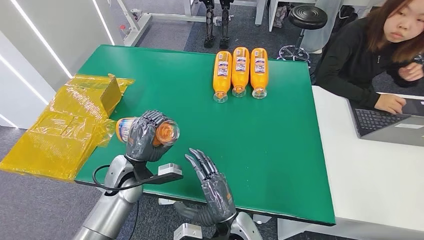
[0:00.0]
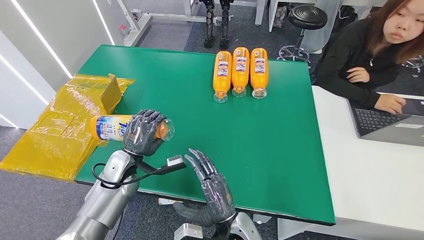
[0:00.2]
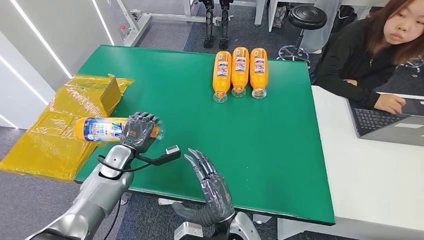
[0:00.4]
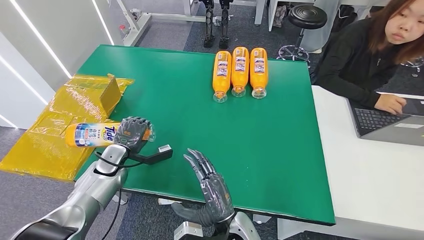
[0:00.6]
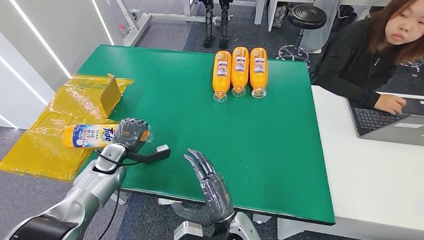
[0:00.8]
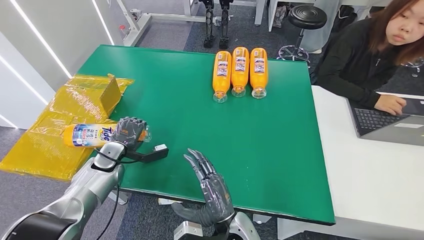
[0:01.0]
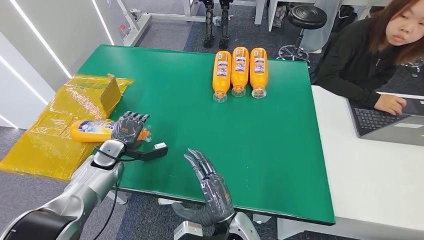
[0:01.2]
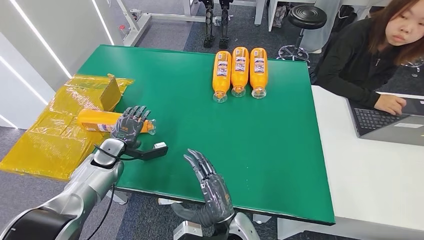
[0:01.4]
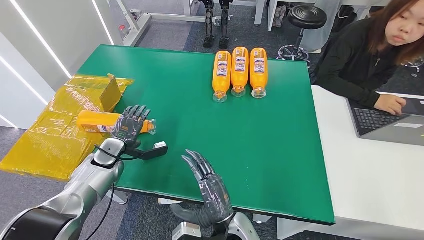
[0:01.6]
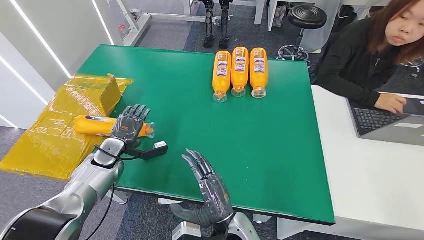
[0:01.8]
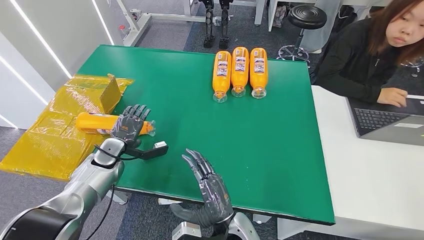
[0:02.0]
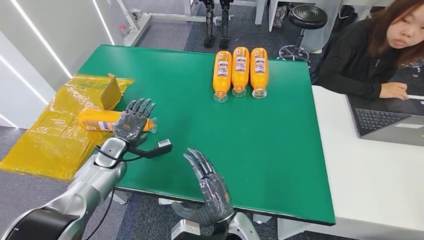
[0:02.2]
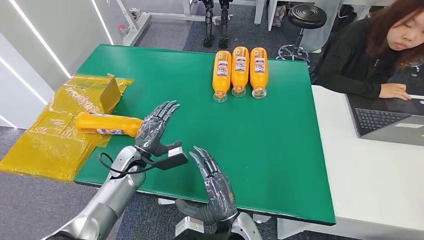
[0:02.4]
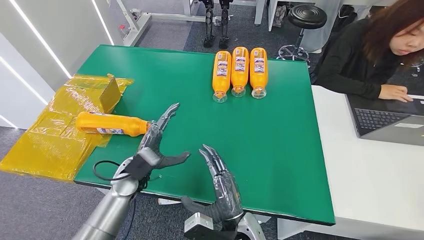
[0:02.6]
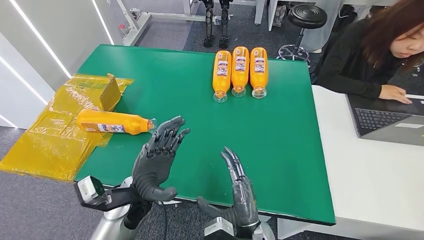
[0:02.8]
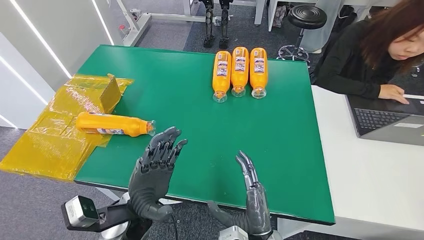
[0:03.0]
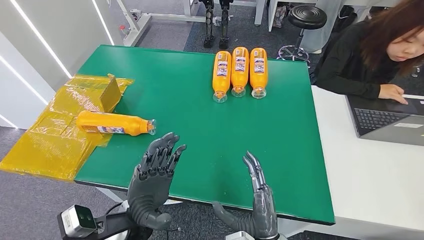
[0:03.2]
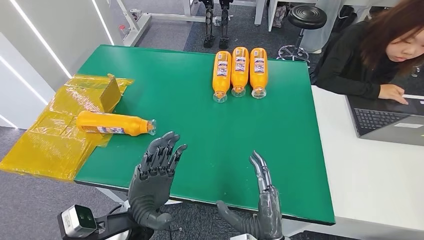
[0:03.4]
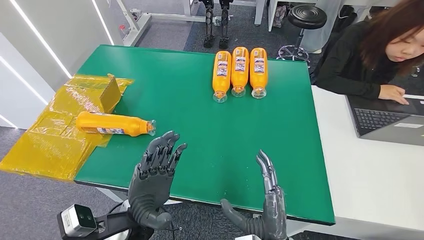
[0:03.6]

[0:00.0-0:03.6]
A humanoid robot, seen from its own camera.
Step, 0:00.0 to 0:03.6: Turn the bottle to the front side.
0:00.0 to 0:01.8: The left hand goes approximately 15 cm to the left and forward.
0:01.8 to 0:03.6: The right hand heads to the right and backward, covering approximately 10 cm. Meanwhile the left hand goes some 25 cm to the right and backward.

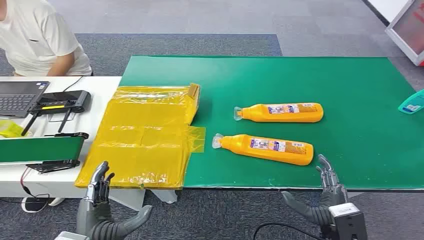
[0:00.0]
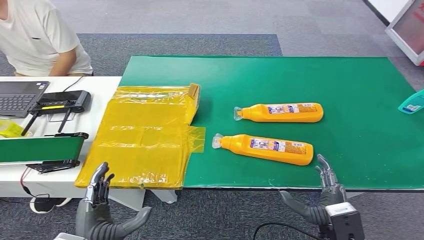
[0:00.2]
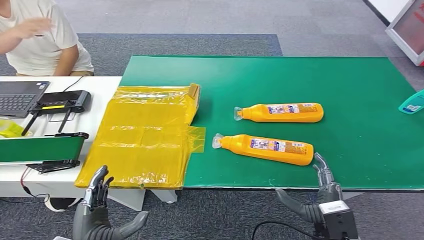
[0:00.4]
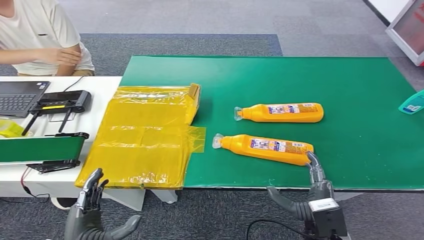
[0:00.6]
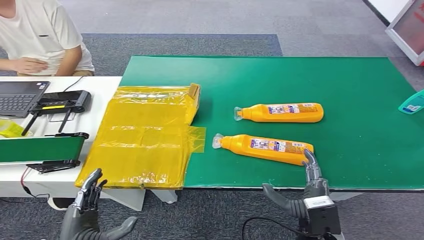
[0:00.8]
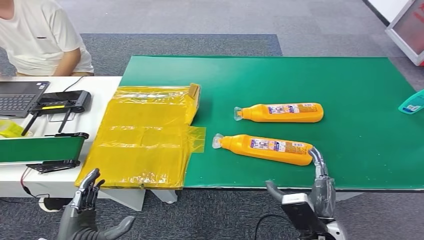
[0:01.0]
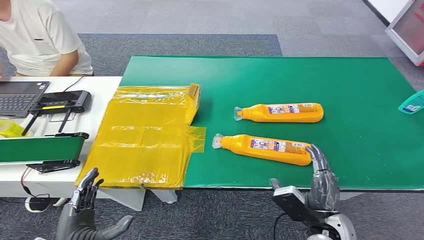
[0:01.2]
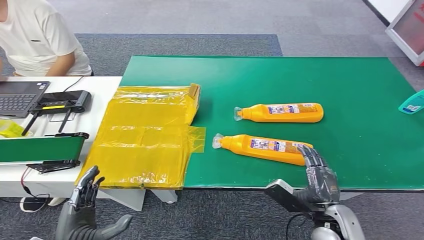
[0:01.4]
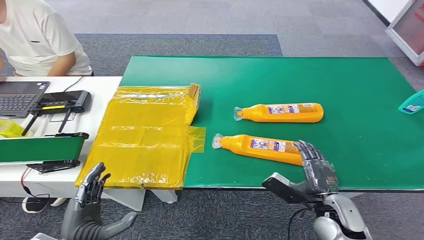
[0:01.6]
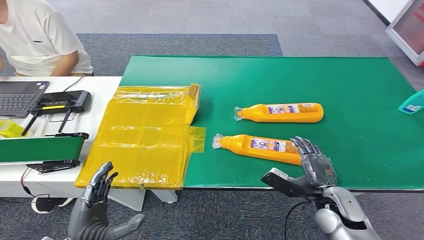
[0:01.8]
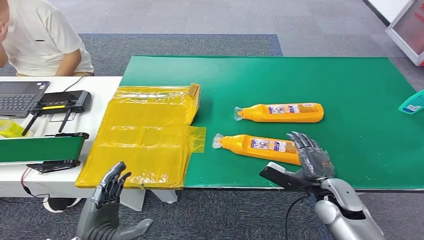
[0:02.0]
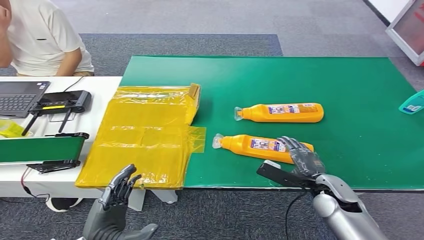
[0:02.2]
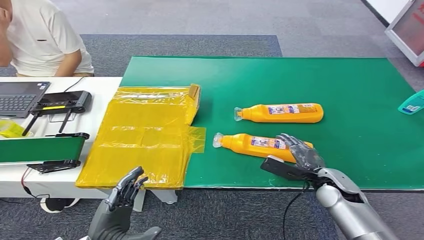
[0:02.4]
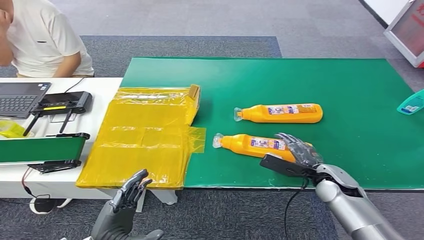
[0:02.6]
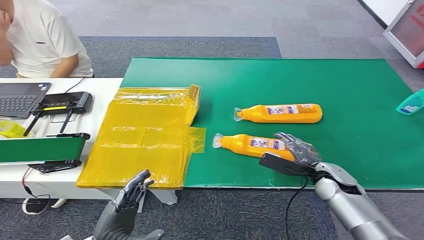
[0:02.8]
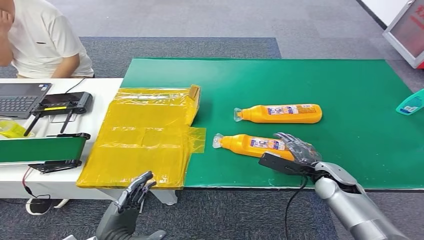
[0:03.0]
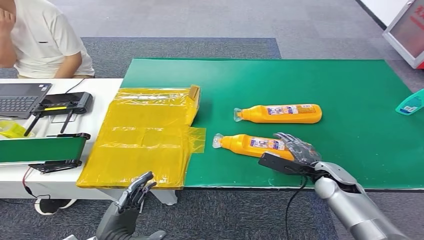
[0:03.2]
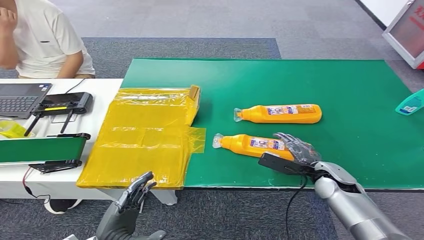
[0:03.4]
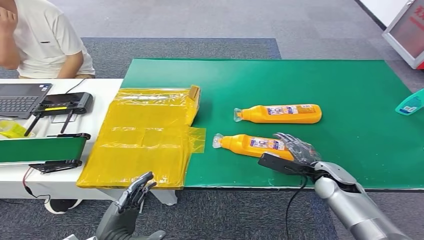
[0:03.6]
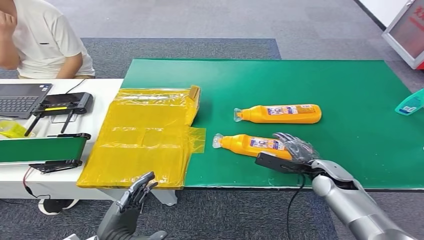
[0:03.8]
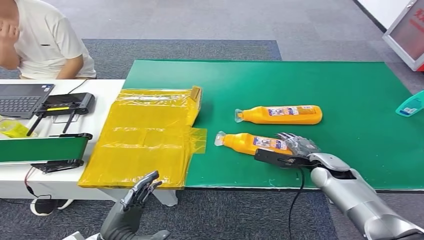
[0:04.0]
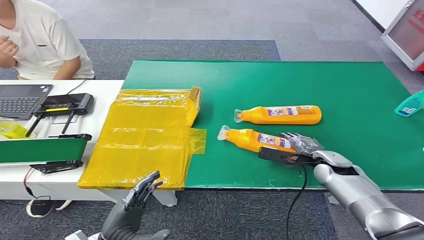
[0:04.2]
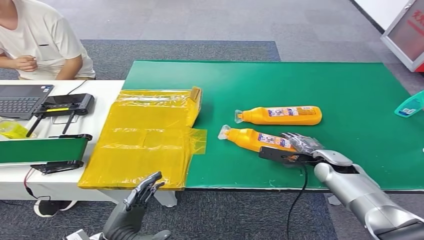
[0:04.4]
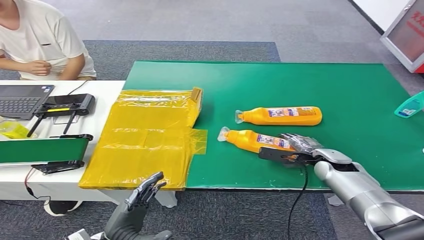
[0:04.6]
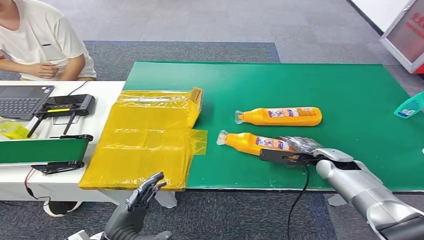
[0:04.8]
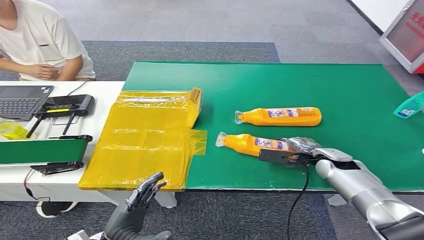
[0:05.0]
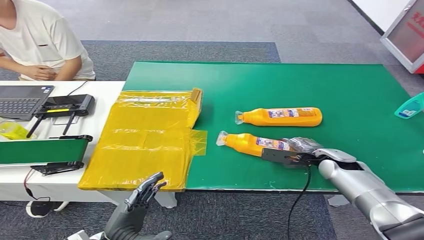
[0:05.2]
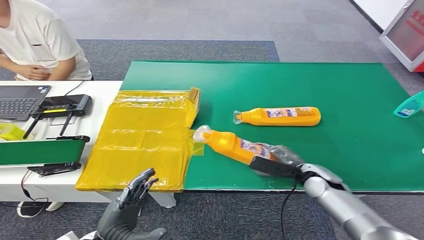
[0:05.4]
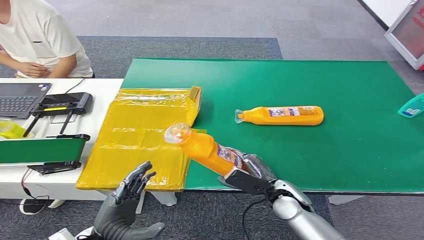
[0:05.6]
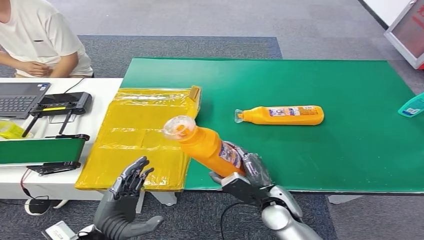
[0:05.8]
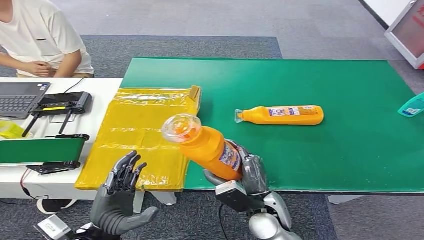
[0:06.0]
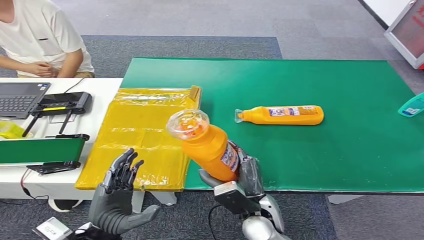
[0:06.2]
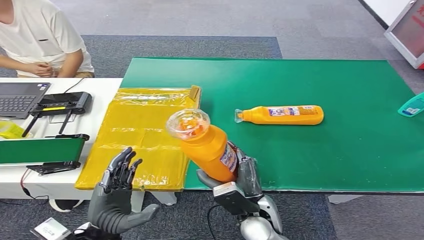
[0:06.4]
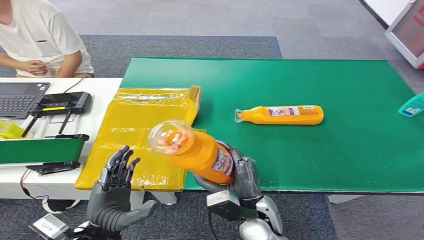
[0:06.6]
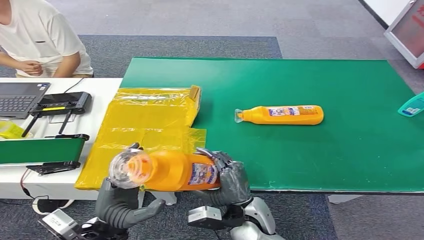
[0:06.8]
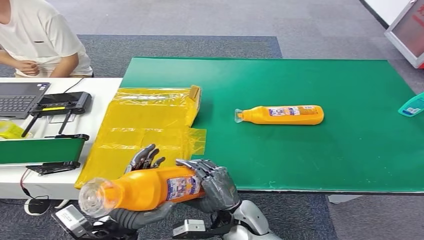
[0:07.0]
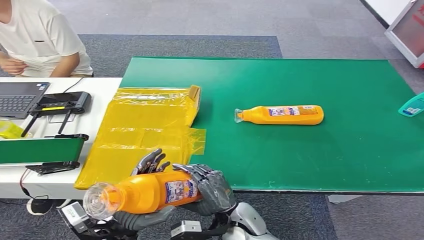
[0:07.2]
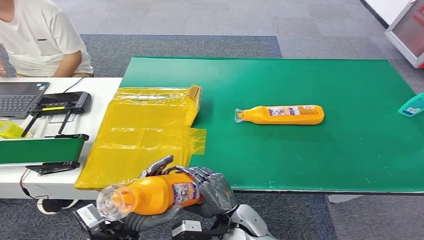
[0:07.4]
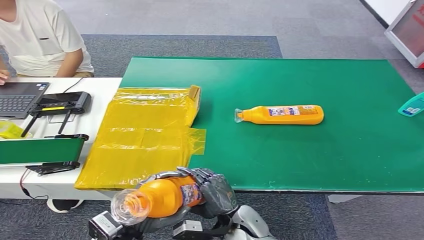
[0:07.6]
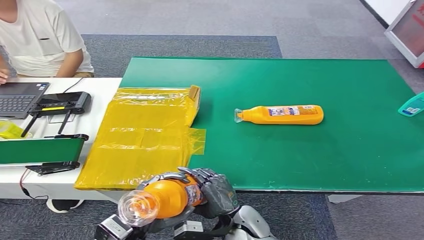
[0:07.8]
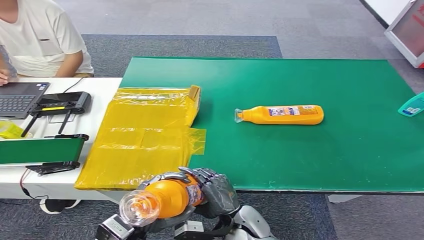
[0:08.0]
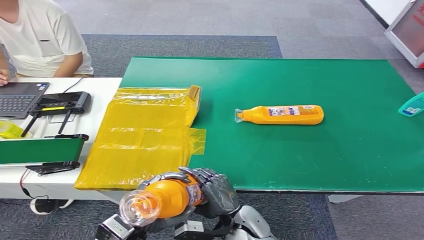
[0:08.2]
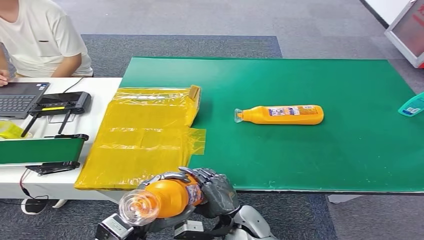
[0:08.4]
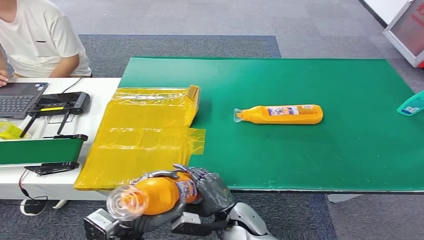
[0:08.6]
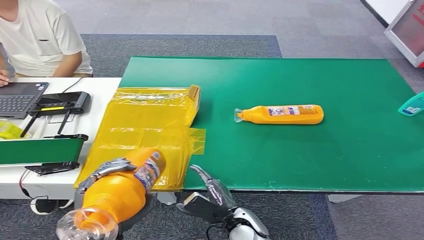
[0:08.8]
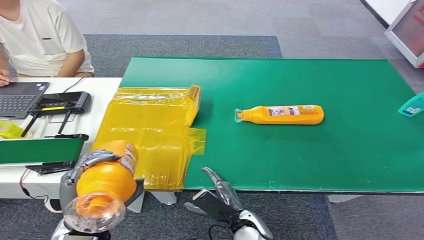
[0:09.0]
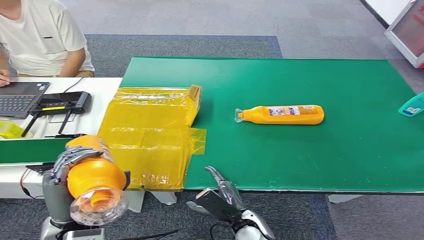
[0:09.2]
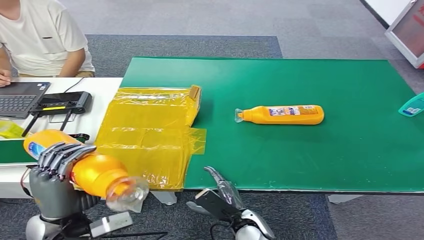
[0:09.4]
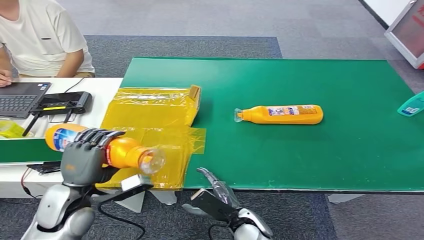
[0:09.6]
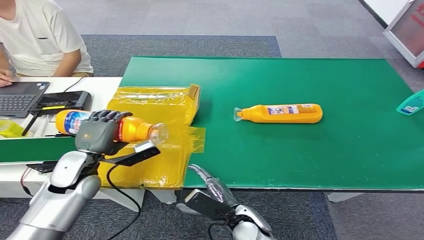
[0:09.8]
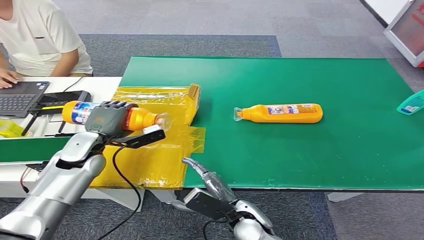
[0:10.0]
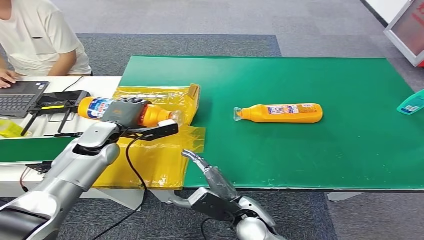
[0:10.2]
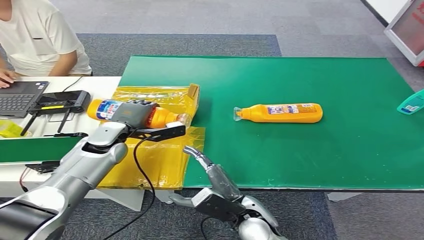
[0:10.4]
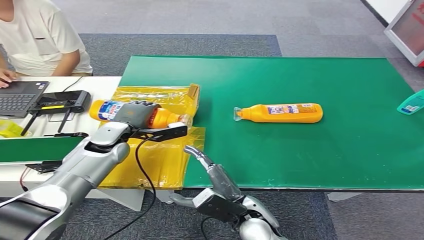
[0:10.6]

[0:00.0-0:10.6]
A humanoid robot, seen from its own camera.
Step, 0:00.0 to 0:06.0: Pick up the bottle from the table.
0:01.6 to 0:03.0: The right hand heads forward, covering roughly 10 cm.
0:06.0 to 0:07.6: The right hand moves to the left, roughly 5 cm.
0:07.6 to 0:09.0: The left hand shifts about 5 cm upward.

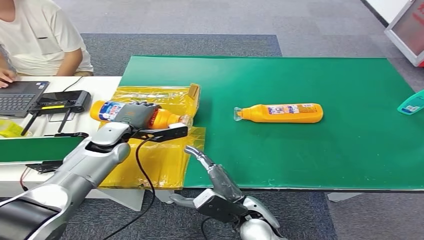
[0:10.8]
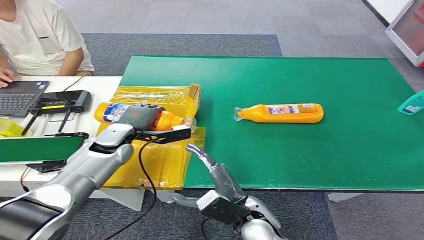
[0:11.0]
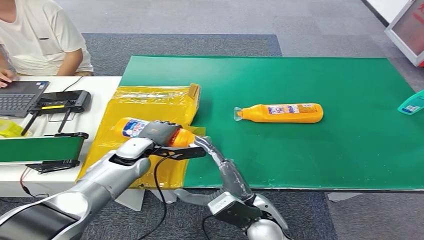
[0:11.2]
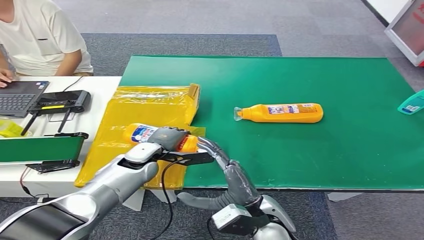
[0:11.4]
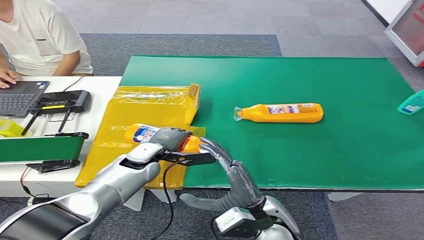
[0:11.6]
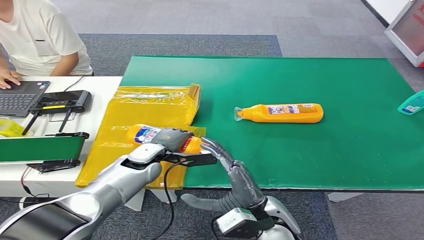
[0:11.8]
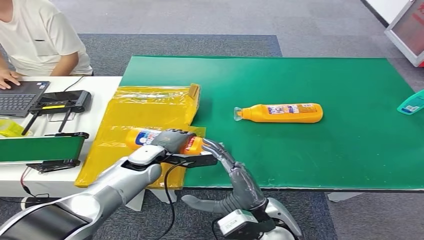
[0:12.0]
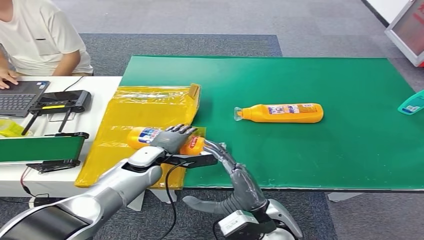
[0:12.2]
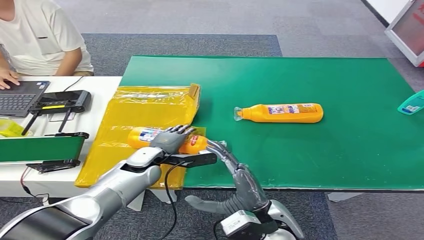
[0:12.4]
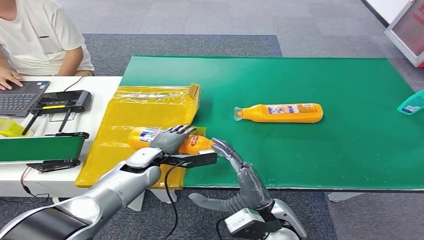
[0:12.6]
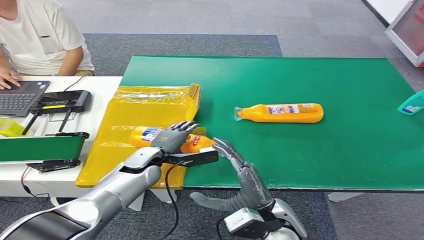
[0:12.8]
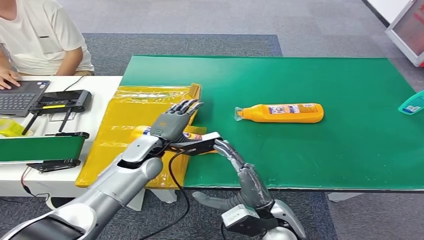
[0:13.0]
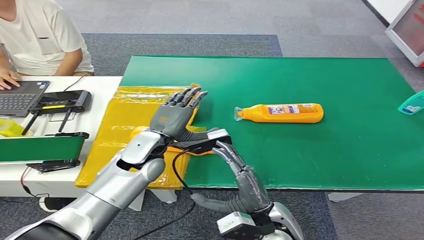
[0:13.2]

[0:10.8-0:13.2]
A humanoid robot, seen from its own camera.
Step, 0:10.8 to 0:13.2: Turn the bottle to the front side.
0:10.8 to 0:12.0: The left hand is displaced to the right and downward by roughly 10 cm. Meanwhile the right hand shifts by about 5 cm.
0:12.0 to 0:13.2: The left hand moves upward, some 10 cm.
